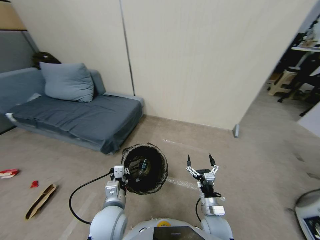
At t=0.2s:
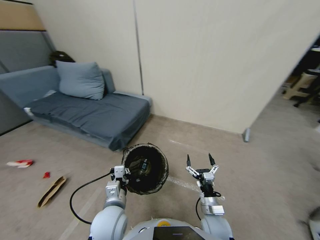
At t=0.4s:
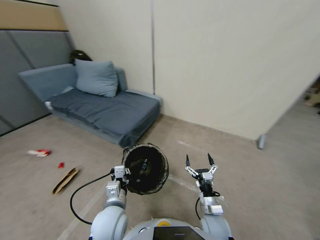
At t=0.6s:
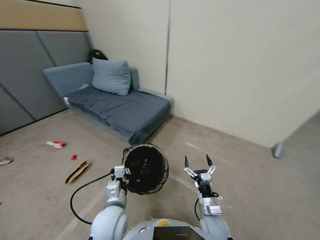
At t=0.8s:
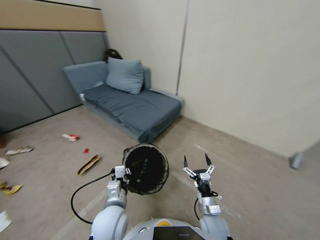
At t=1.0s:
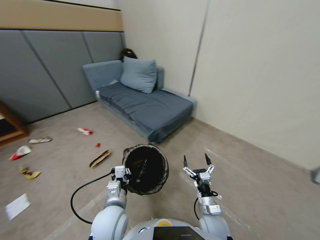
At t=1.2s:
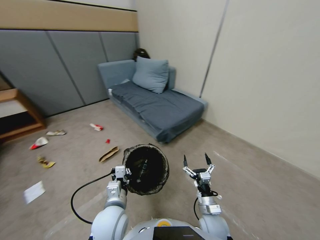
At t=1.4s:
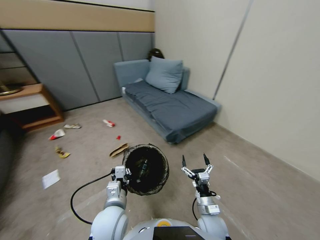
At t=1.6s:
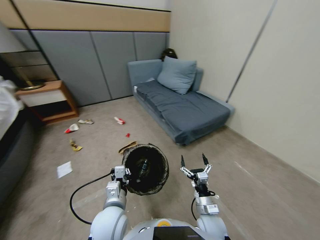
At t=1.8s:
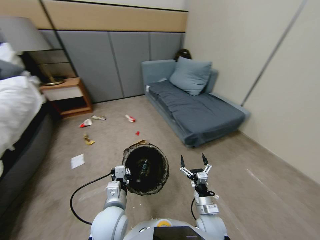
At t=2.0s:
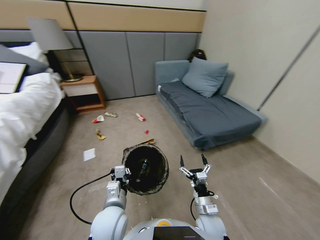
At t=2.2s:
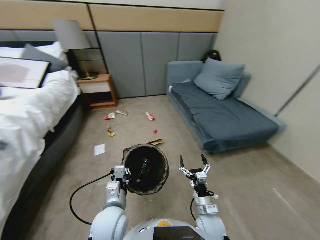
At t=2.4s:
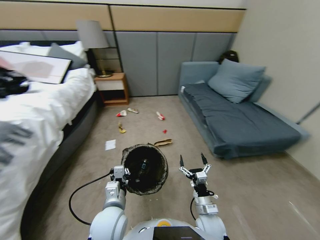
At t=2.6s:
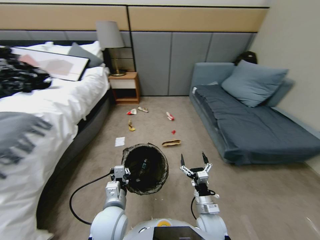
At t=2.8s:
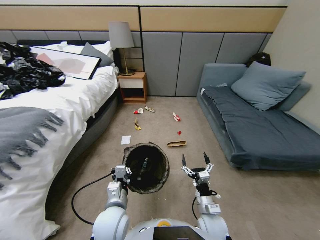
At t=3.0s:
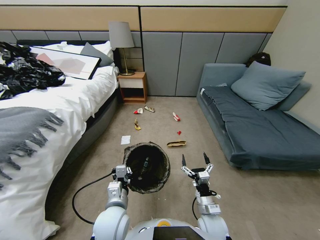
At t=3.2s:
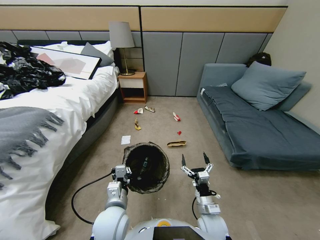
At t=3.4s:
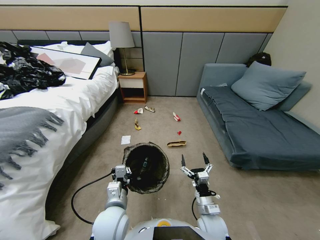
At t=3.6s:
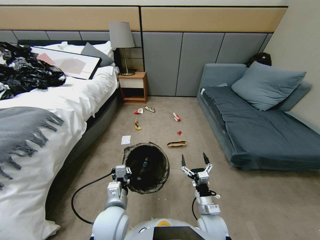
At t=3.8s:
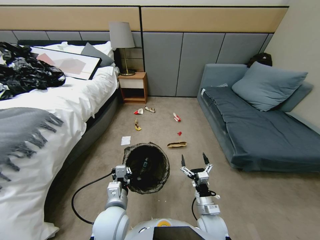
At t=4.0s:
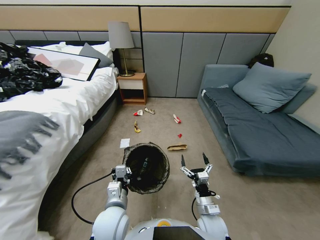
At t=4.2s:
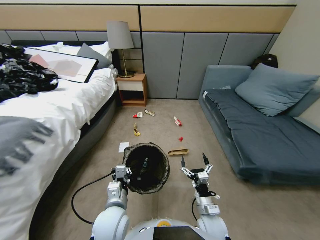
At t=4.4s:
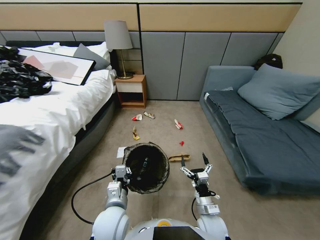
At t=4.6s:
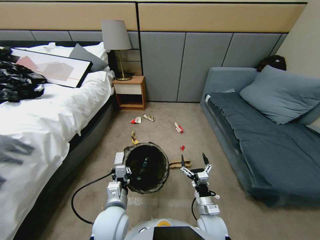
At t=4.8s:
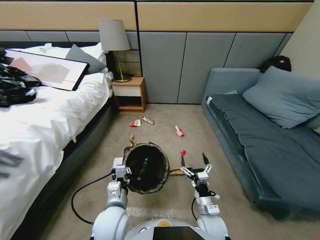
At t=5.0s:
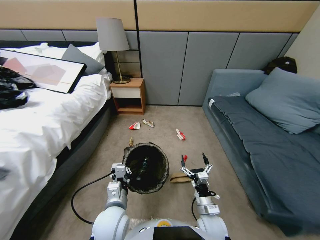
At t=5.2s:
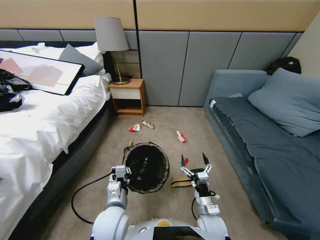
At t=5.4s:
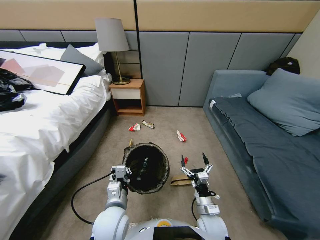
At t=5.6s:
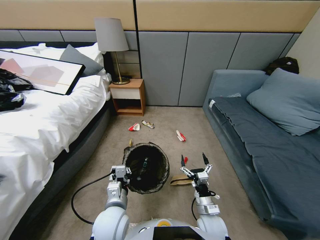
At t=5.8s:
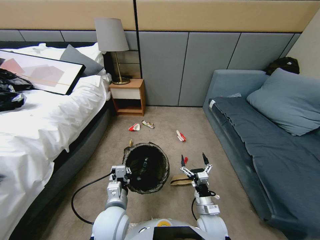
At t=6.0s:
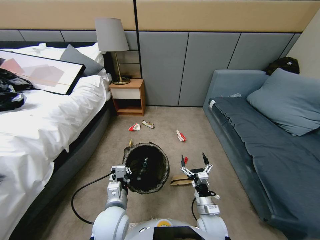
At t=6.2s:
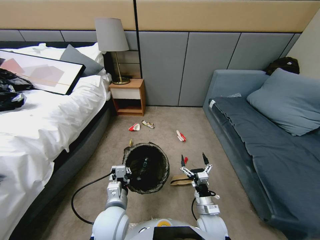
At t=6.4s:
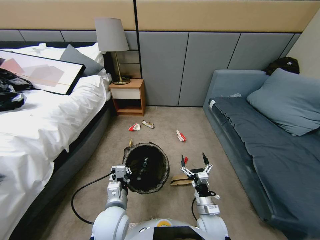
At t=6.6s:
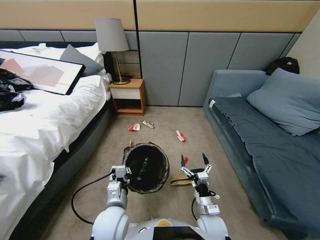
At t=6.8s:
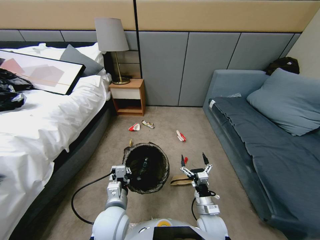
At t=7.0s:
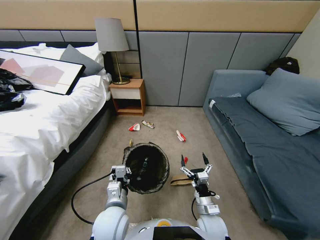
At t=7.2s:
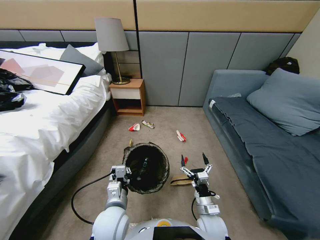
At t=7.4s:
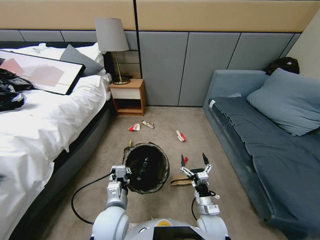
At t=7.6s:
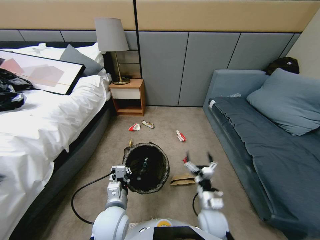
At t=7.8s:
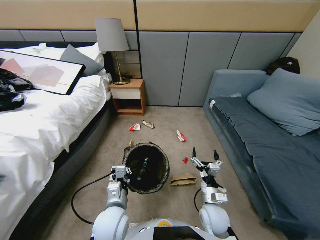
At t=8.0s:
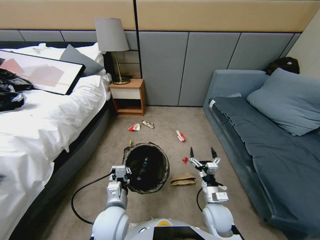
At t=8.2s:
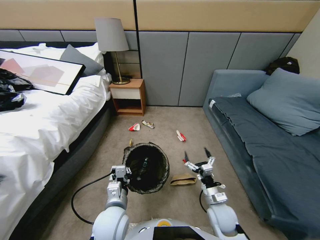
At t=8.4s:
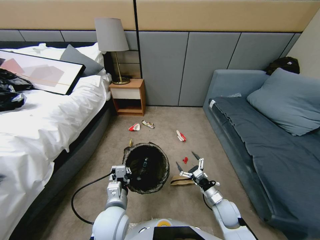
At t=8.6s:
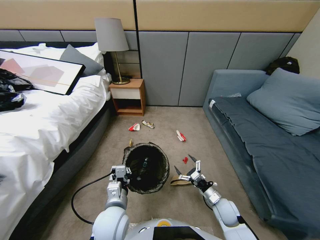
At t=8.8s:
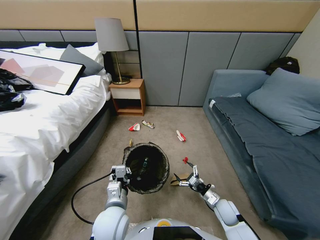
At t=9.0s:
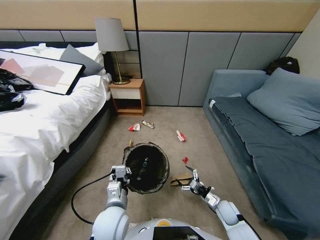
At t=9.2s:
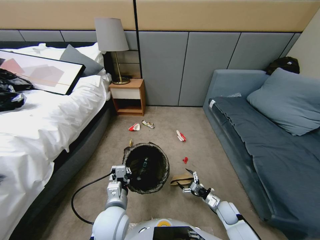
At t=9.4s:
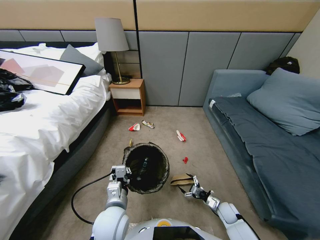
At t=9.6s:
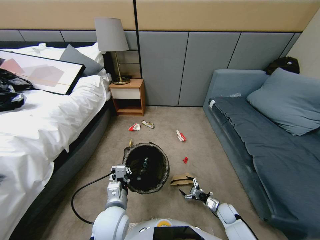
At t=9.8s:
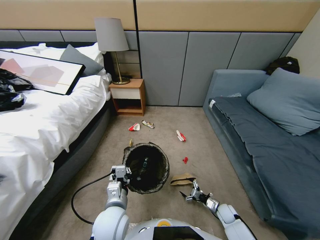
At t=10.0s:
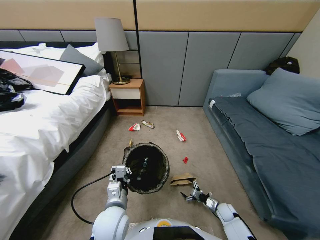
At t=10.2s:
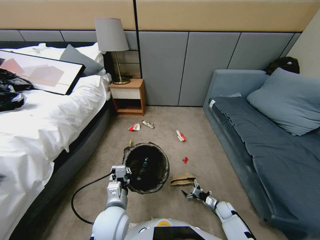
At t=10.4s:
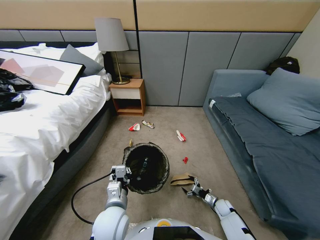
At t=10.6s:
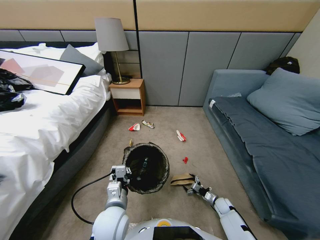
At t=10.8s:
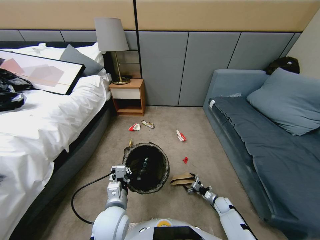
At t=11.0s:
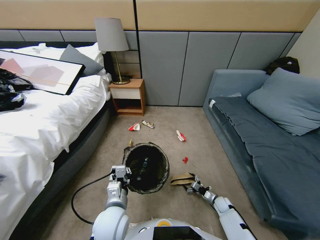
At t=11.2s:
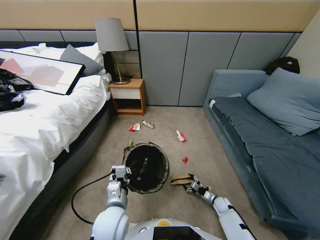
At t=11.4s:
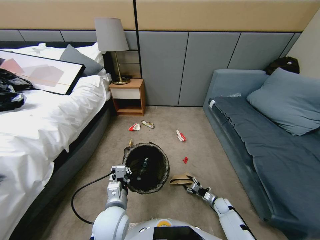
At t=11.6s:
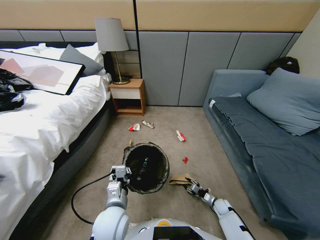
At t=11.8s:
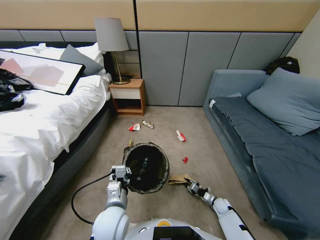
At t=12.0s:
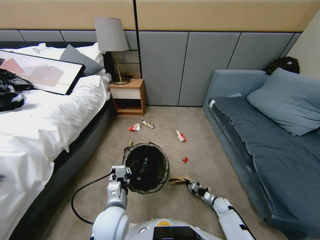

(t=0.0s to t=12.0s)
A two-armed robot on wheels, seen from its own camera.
Task of the whole recording: Pick up the trash bin, then pick up the garbage from the floor and place it into the trash bin.
t=6.0s - t=7.6s: The grippers move only a little.
t=7.6s - t=9.0s: The right gripper shifts about 20 cm to the right and downward.
t=9.0s - t=10.4s: The right gripper travels downward by about 10 cm.
t=10.4s - t=12.0s: The right gripper closes up.

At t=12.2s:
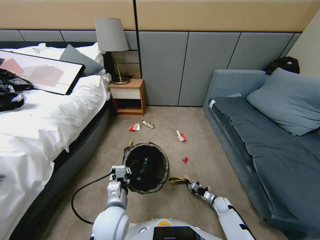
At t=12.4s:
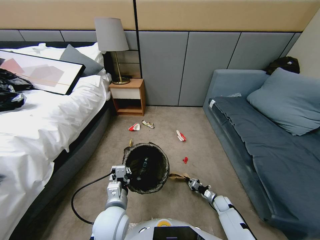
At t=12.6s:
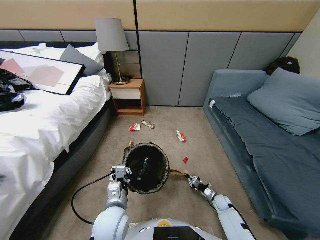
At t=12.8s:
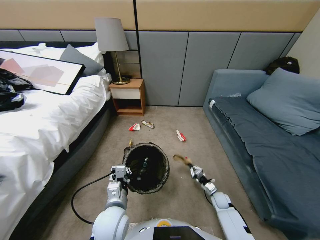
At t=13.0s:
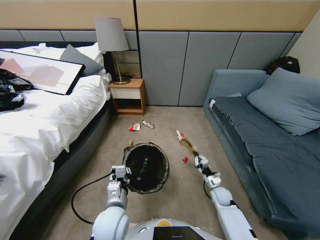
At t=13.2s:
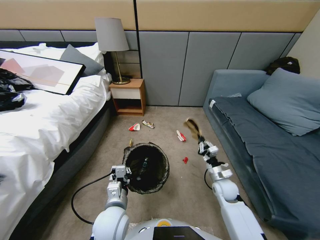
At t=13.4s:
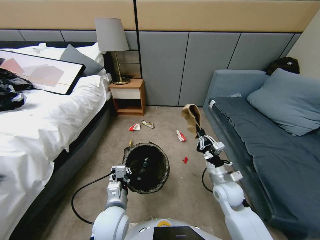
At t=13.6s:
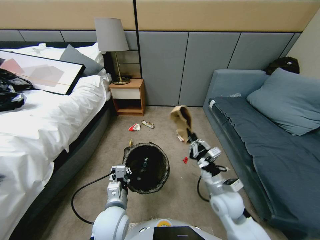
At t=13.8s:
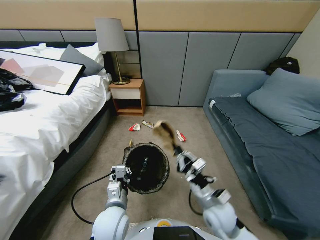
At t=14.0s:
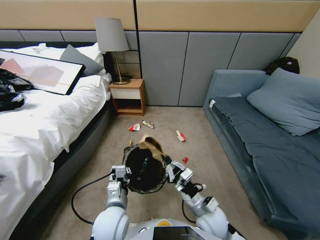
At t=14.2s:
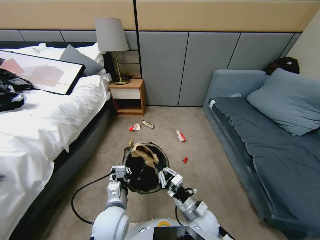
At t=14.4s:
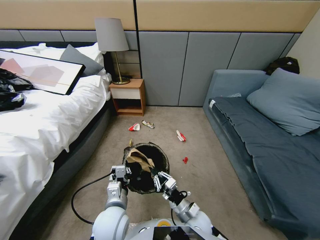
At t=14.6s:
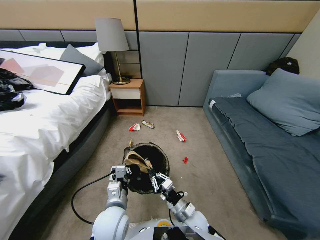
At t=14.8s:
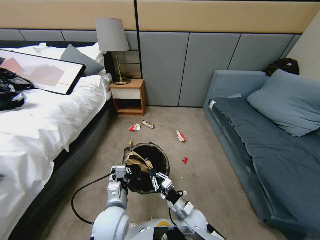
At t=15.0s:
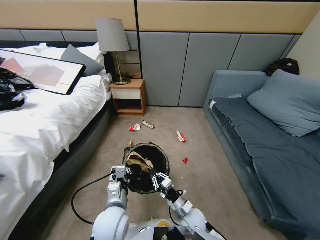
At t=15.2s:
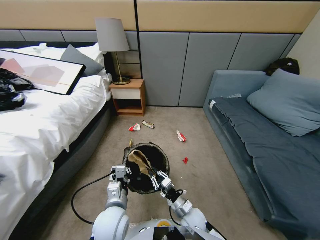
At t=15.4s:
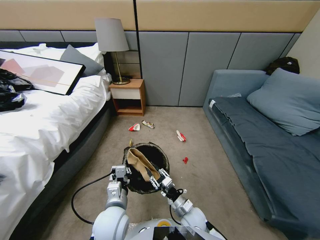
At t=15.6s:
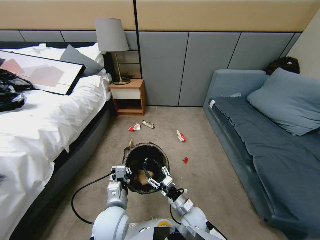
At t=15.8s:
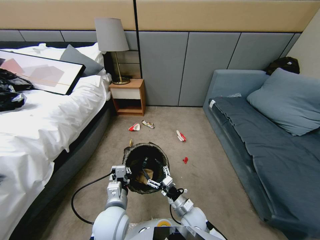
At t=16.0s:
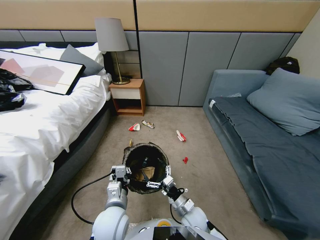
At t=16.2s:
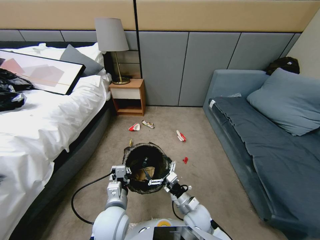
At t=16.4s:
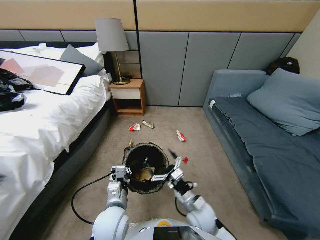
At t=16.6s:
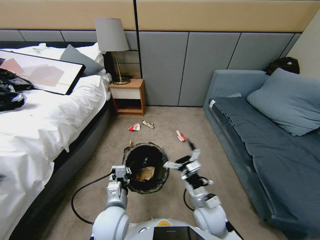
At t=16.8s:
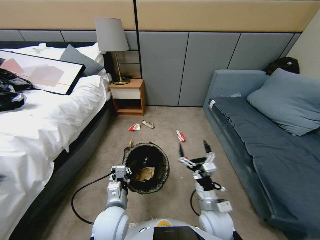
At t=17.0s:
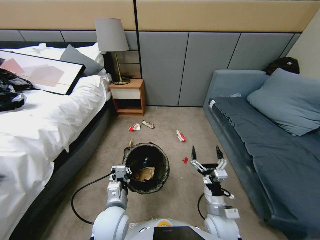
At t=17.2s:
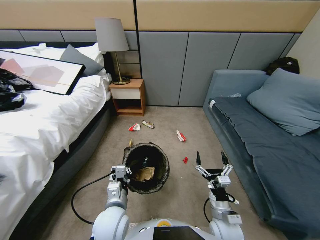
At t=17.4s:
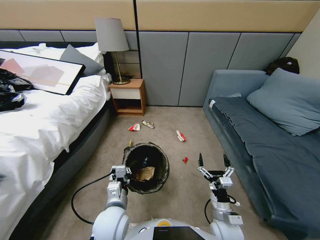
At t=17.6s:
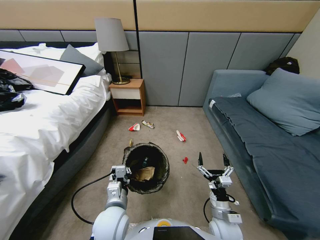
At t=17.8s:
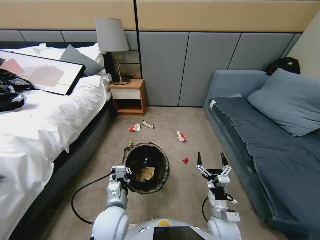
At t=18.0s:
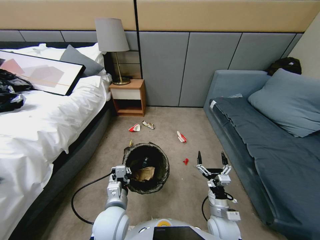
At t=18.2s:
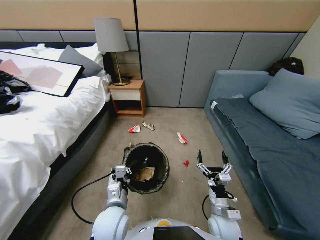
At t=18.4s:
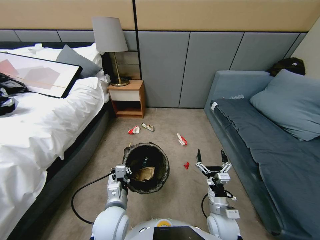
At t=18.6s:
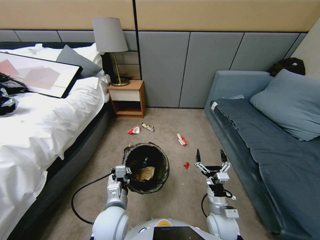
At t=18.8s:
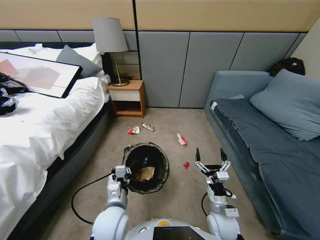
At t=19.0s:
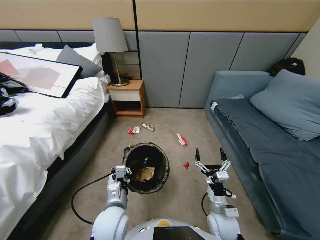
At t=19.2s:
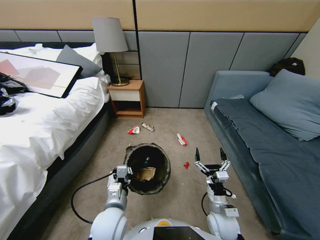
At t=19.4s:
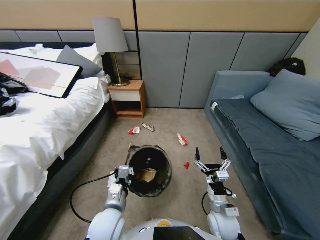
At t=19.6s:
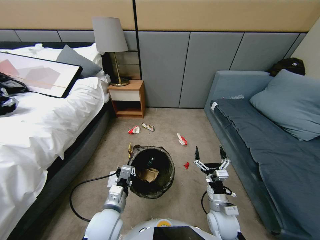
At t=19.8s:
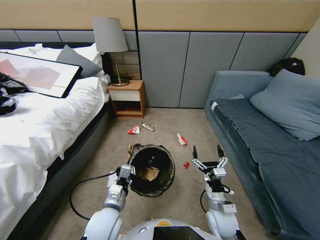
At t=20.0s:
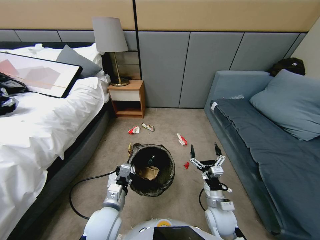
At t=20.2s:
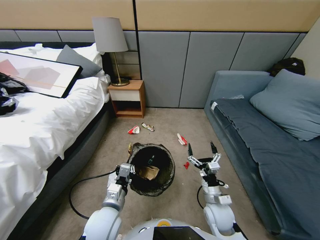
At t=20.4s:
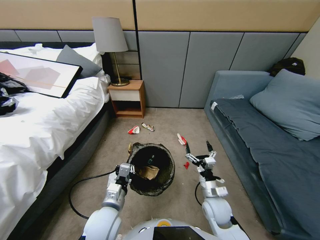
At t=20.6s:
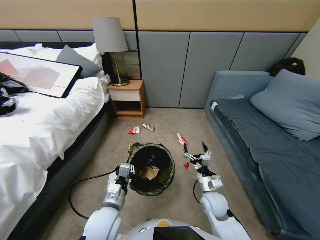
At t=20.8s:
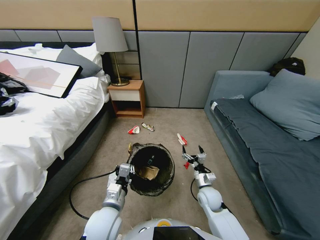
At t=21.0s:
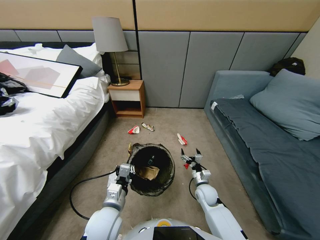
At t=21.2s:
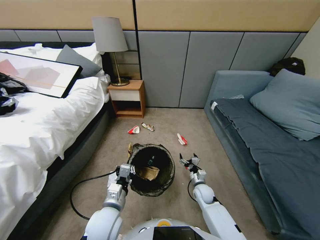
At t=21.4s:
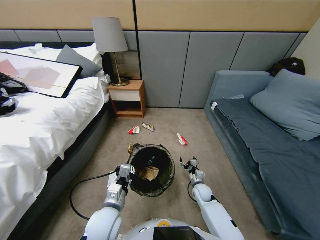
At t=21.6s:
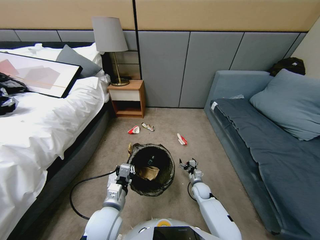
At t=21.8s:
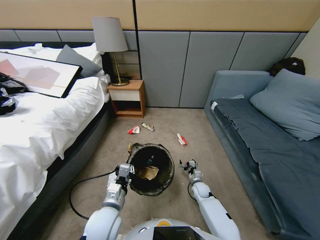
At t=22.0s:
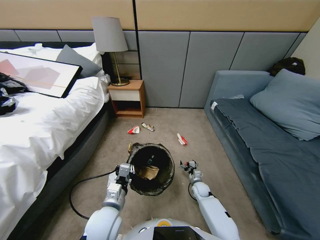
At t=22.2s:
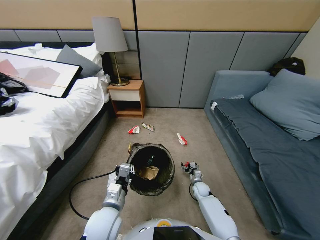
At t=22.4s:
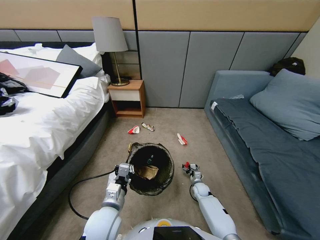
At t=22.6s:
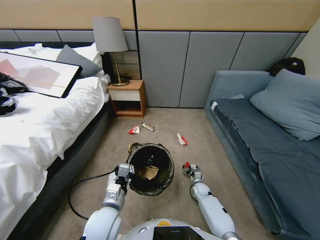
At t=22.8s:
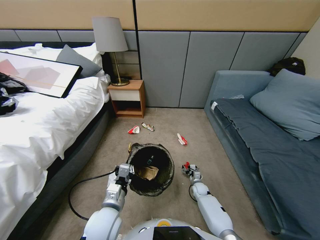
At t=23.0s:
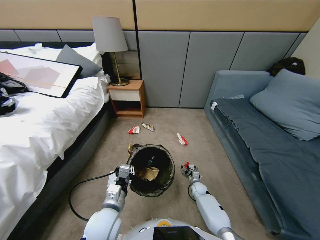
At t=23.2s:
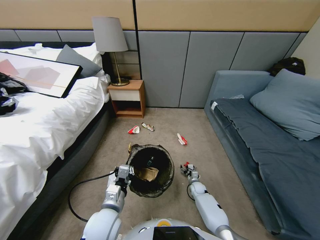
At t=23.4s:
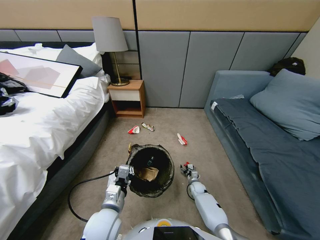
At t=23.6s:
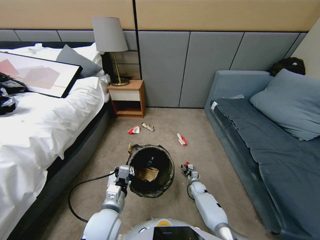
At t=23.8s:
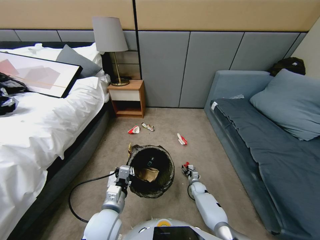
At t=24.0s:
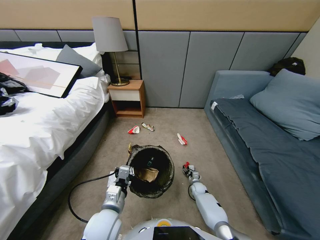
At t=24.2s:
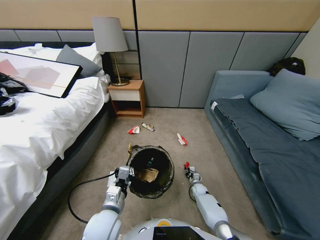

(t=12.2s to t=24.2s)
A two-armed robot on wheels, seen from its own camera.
Task of the whole recording: Pick up the trash bin, then pick up the garbage from the floor and place it into the trash bin.
t=12.2s - t=13.8s: The right gripper shifts some 35 cm upward and to the left.
t=13.8s - t=15.2s: The right gripper shifts about 10 cm downward and to the left.
t=15.2s - t=16.6s: The right gripper shifts some 10 cm upward, and opens.
t=16.6s - t=18.2s: The right gripper shifts roughly 5 cm downward.
t=18.2s - t=19.8s: The grippers move only a little.
t=19.8s - t=21.2s: The right gripper shifts some 20 cm downward and forward.
t=21.2s - t=22.6s: The right gripper goes some 10 cm downward.
t=22.6s - t=24.2s: The right gripper closes up.
